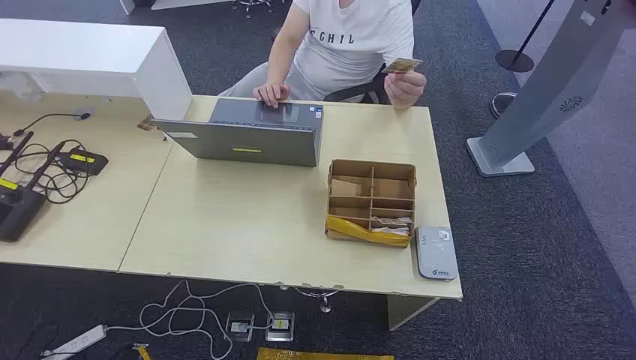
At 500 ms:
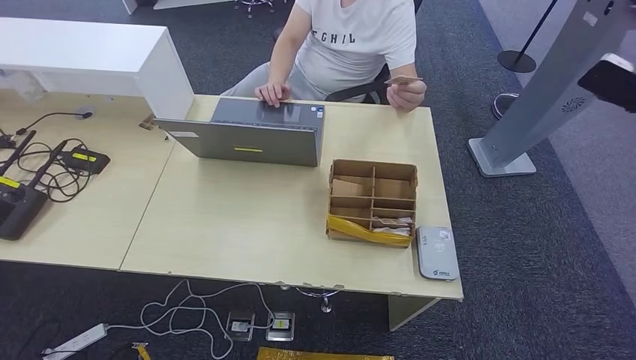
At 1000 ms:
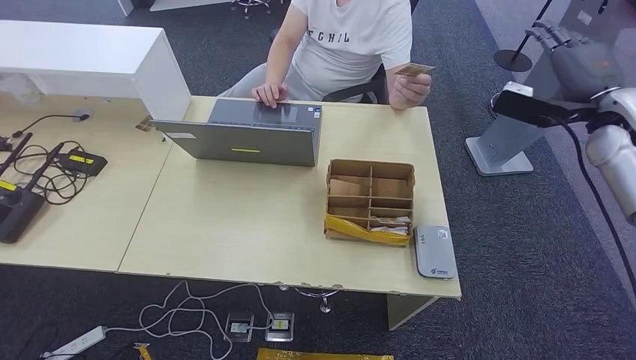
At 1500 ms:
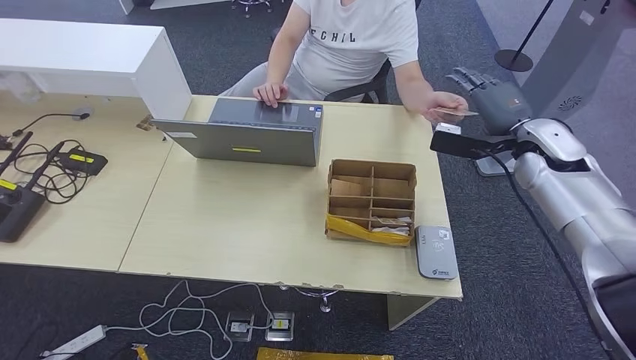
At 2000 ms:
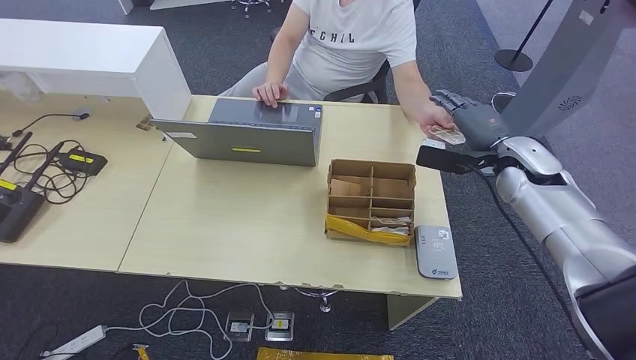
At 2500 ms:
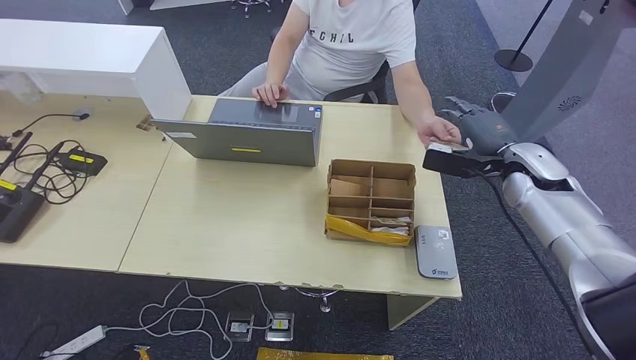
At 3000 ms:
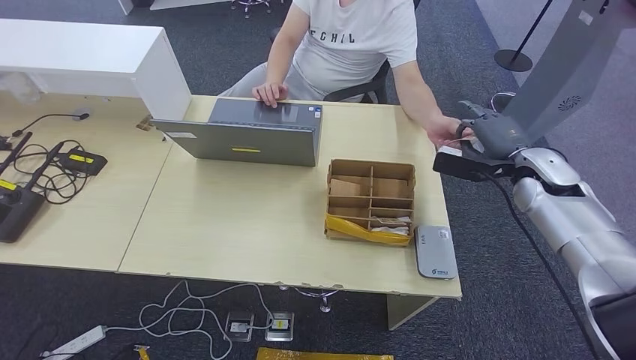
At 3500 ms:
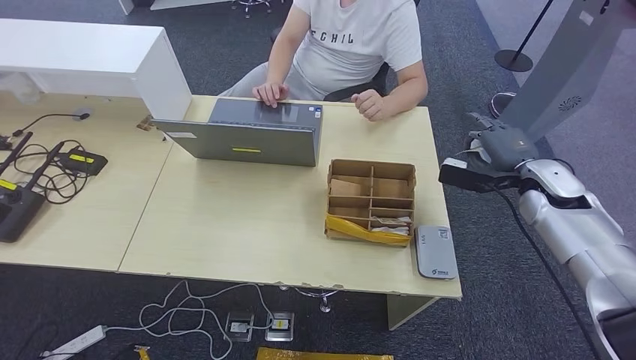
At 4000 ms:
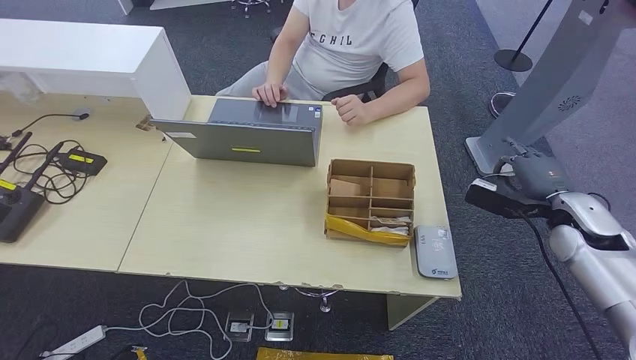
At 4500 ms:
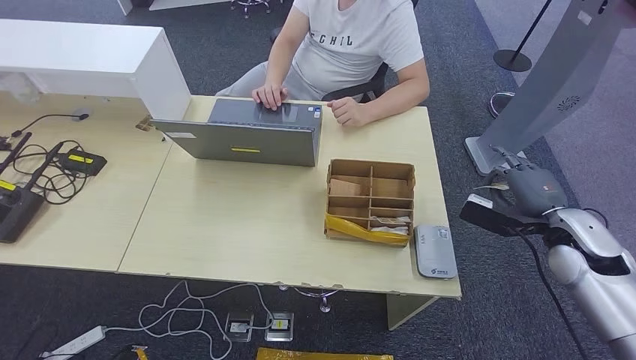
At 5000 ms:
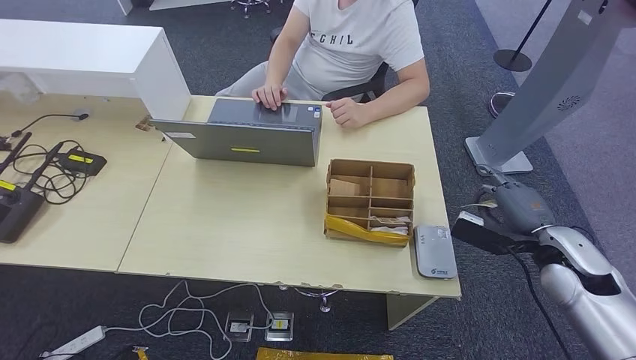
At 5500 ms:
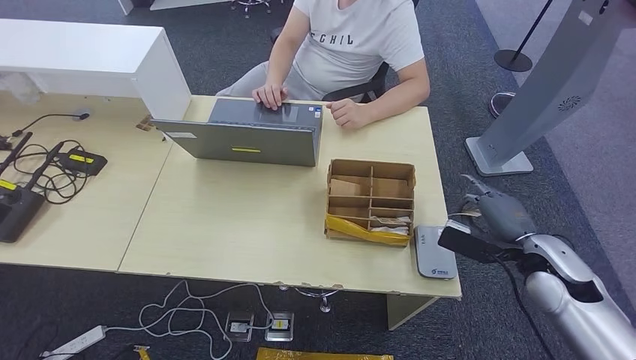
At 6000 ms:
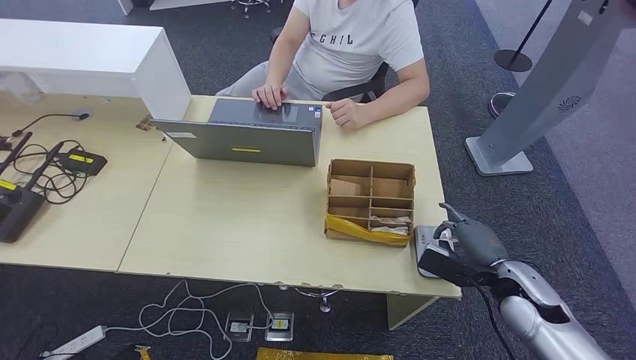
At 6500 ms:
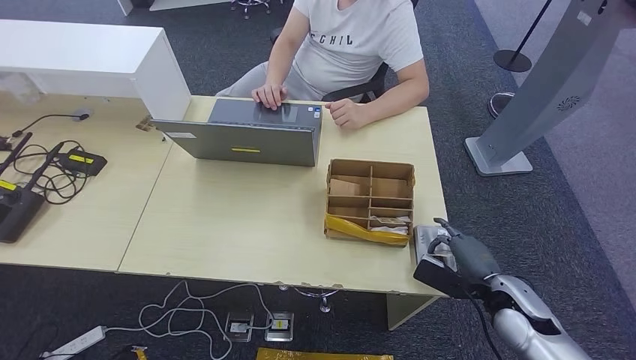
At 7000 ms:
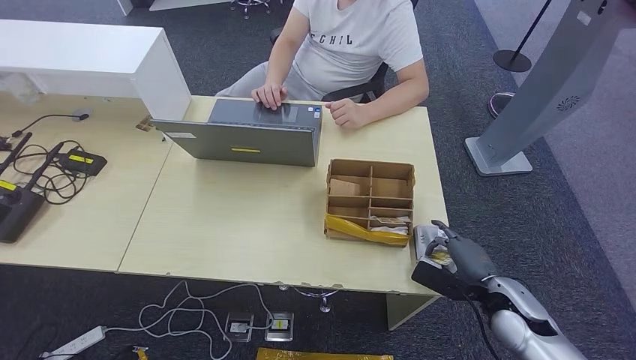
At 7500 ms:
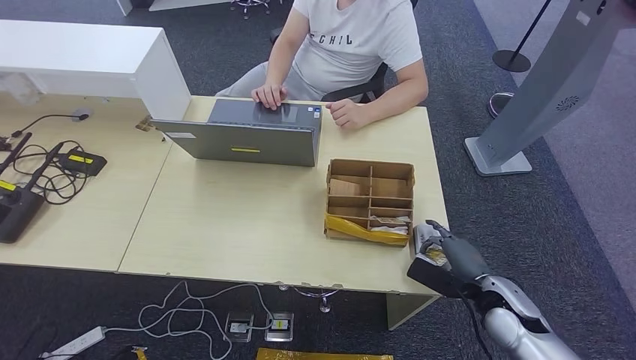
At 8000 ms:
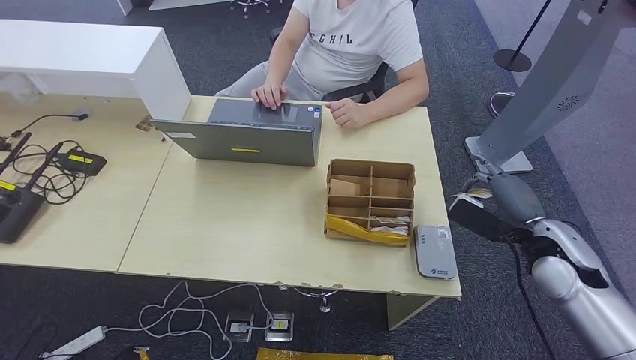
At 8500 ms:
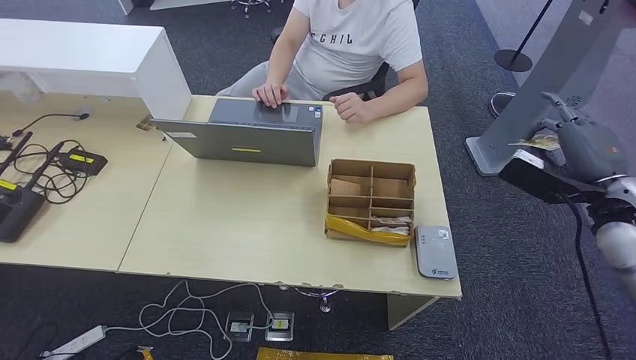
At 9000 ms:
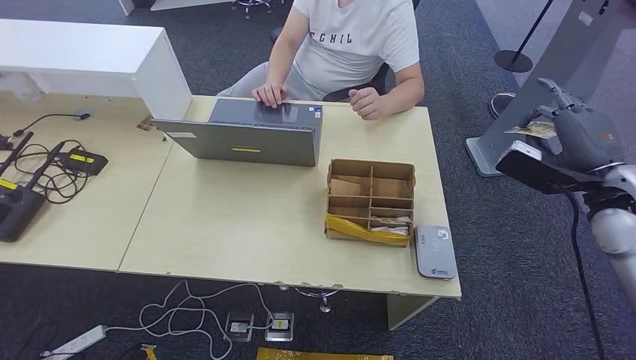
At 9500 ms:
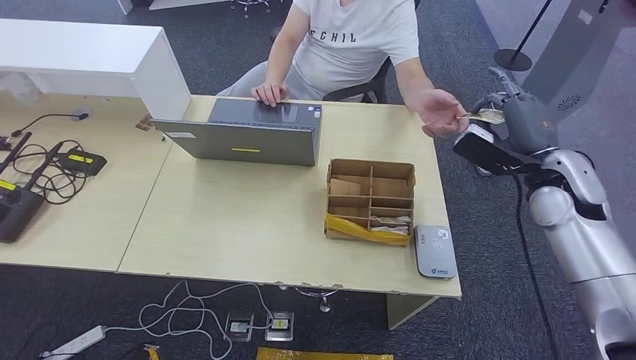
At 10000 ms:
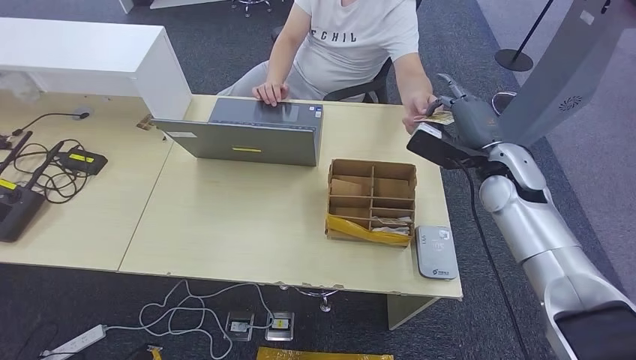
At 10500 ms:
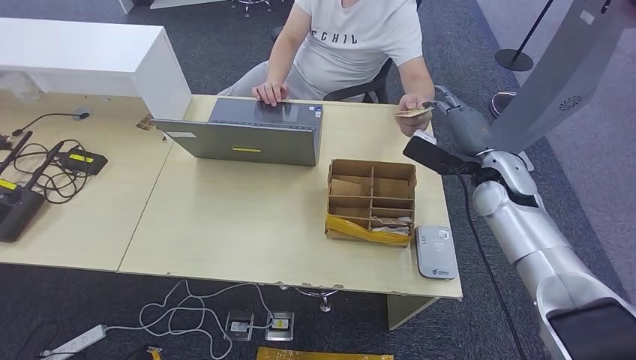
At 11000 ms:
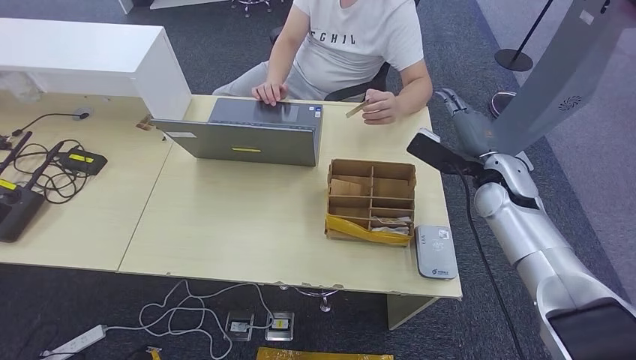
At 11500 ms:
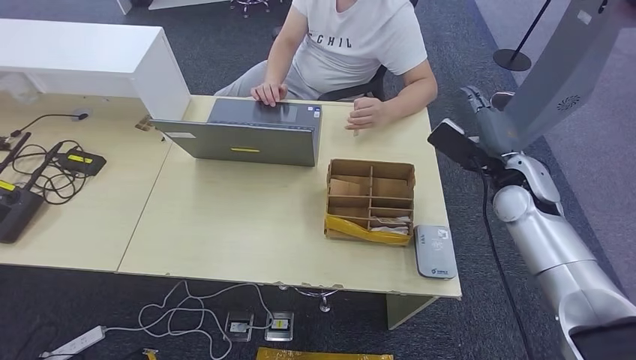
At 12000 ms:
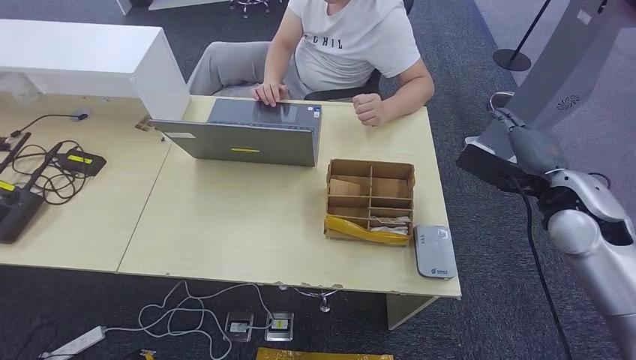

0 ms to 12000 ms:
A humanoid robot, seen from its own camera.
Step, 0 ms to 3500 ms: Take the ID card from the person's hand.
Step, 4000 ms to 6500 ms: Place the ID card on the card reader.
2000 ms to 4000 ms: The right hand goes approximately 10 cm to the right and backward.
4000 ms to 6000 ms: The right hand travels downward, backward and to the left by roughly 15 cm.
6000 ms to 8000 ms: The right hand heads upward, covering roughly 10 cm.
8000 ms to 10000 ms: The right hand heads forward, to the left and upward, covering approximately 15 cm.
10000 ms to 12000 ms: The right hand moves backward and to the right, approximately 10 cm.

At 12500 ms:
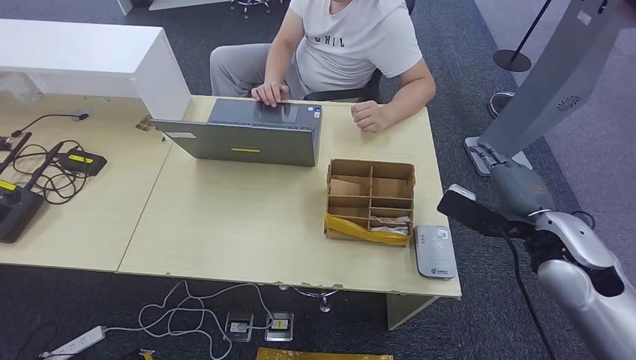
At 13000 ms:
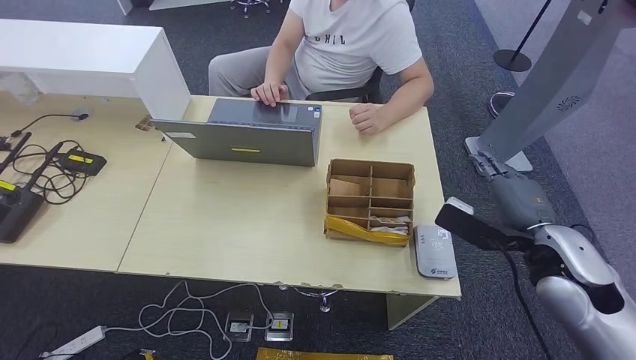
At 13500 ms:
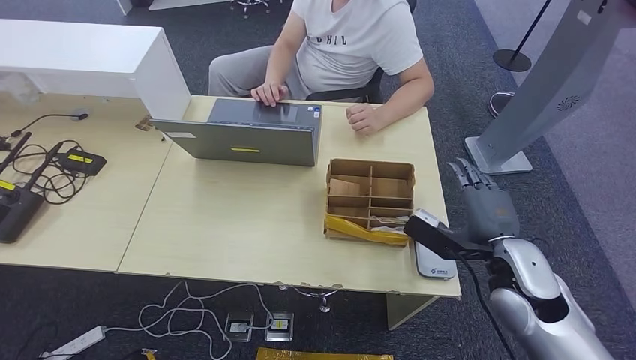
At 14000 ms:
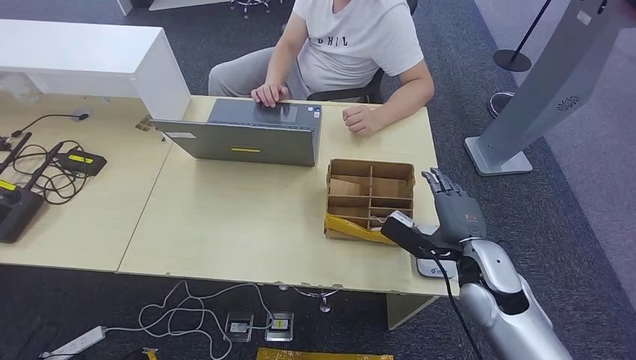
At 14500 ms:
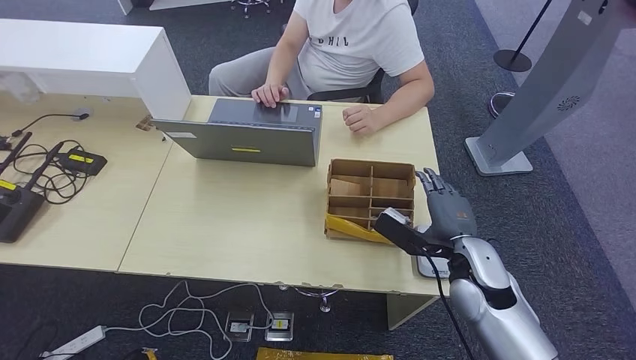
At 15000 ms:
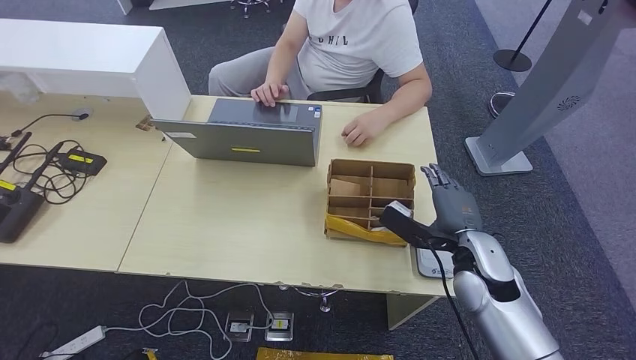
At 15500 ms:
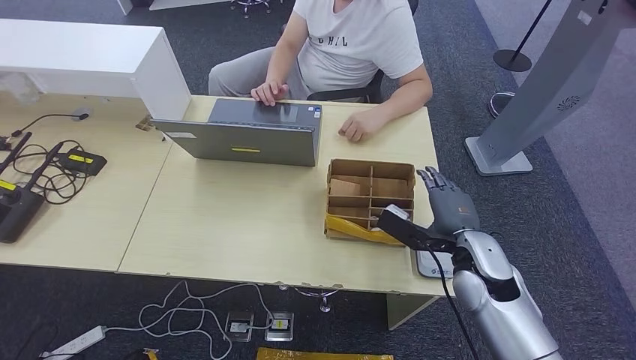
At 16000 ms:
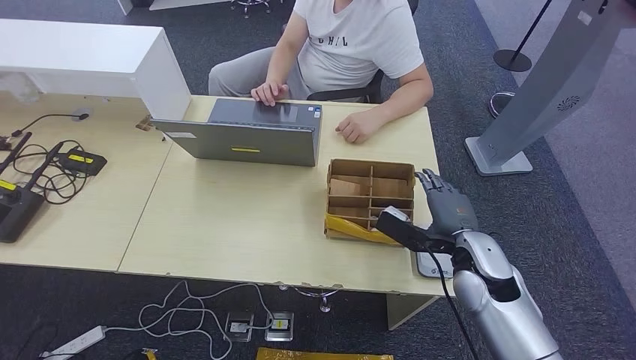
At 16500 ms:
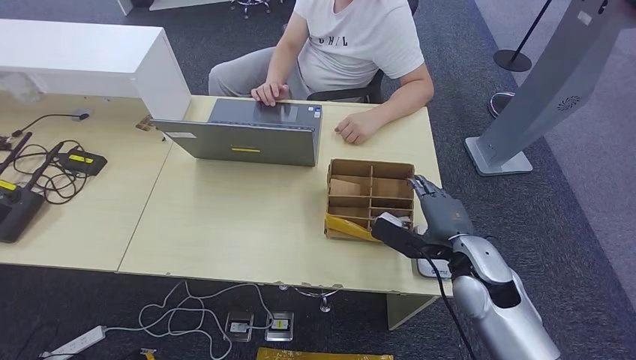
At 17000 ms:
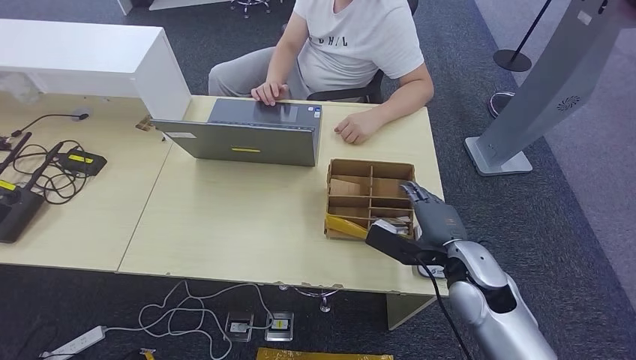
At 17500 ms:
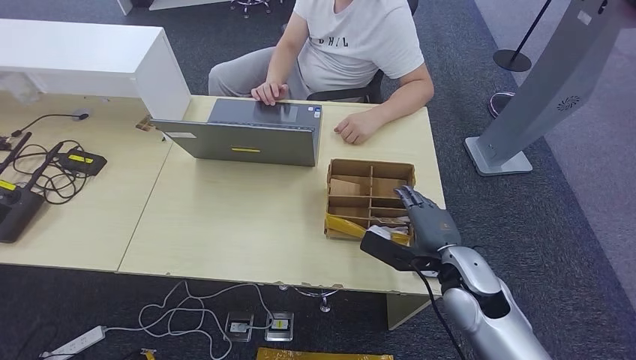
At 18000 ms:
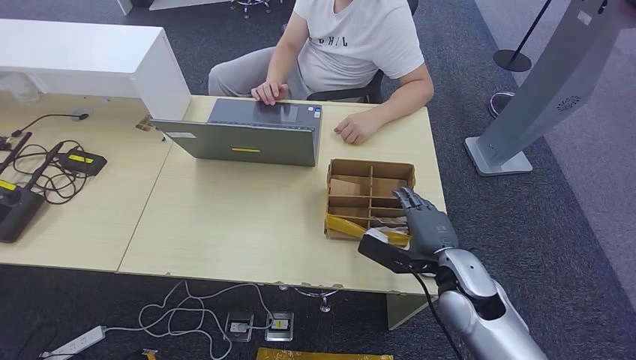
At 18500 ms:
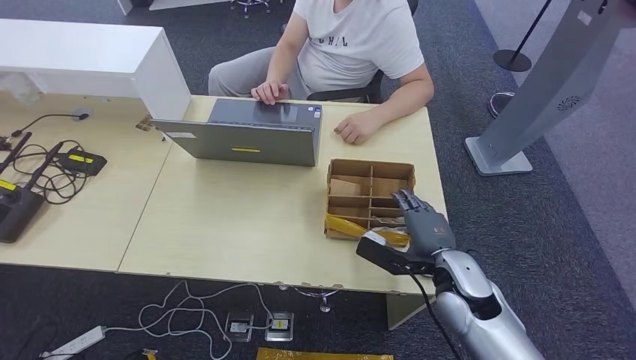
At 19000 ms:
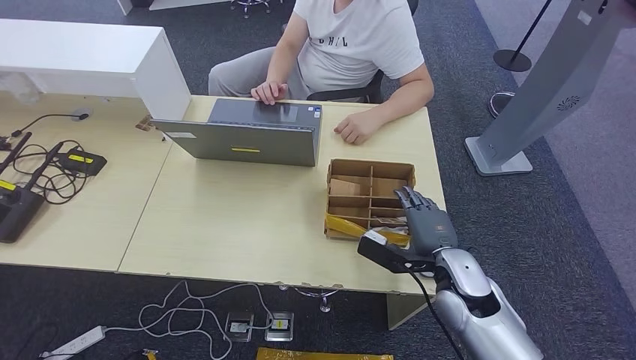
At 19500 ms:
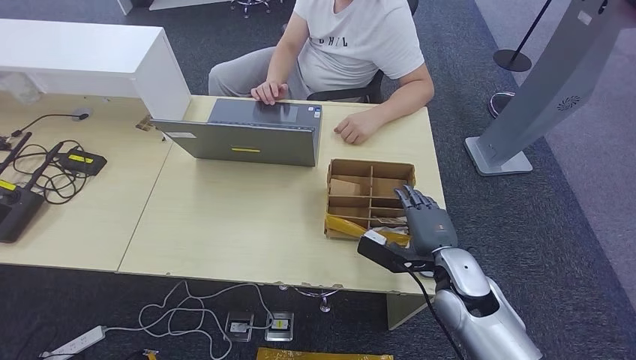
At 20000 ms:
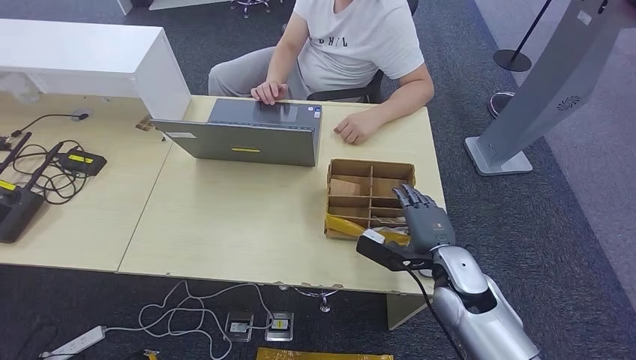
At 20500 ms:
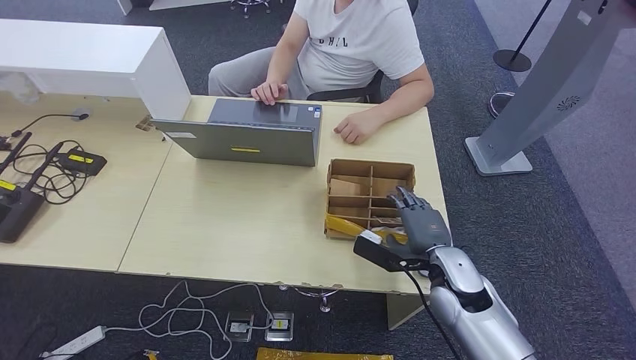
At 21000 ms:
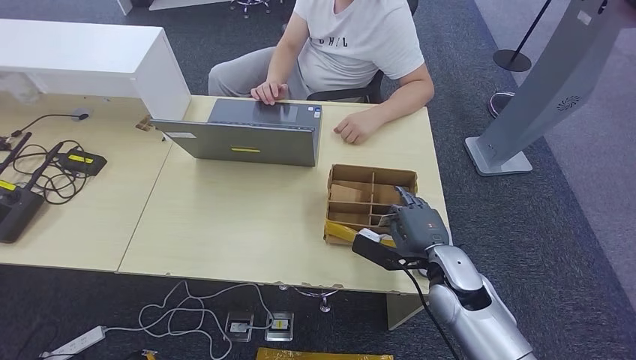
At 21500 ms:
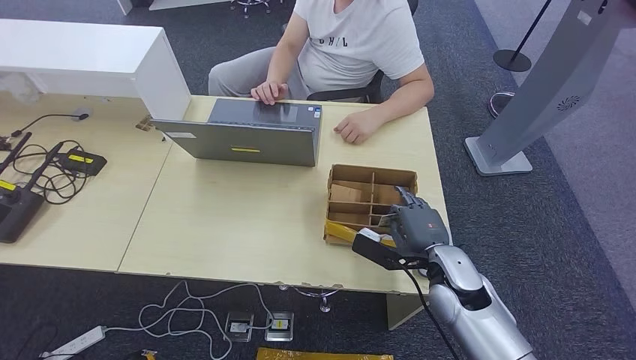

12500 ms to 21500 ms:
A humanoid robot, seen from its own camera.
Step, 12500 ms to 16000 ms: Hand the ID card to the person.
12500 ms to 14500 ms: The right hand moves downward and to the left, about 15 cm.
14500 ms to 19500 ms: There are only small adjustments of the hands.
19500 ms to 21500 ms: Neither hand changes place.
